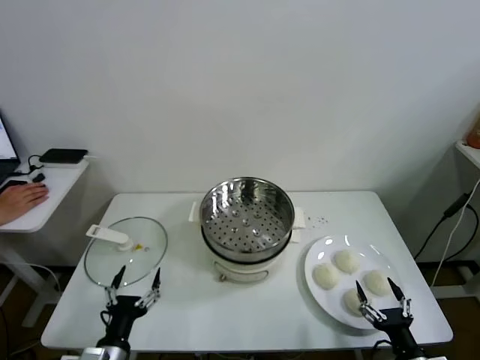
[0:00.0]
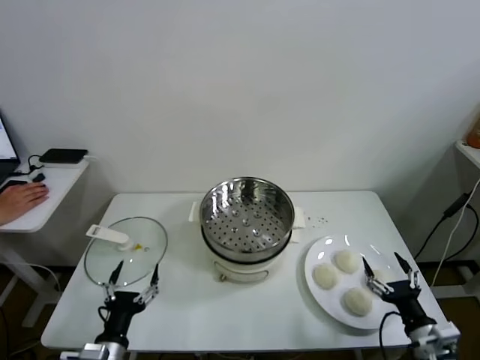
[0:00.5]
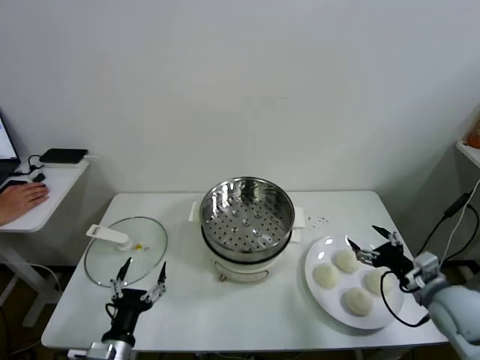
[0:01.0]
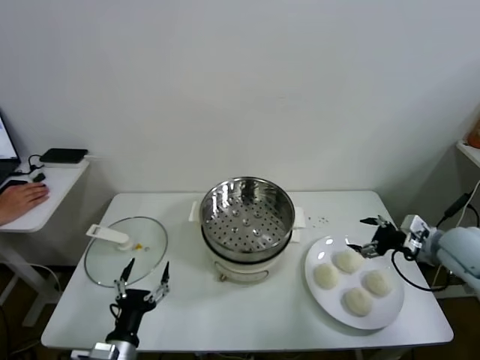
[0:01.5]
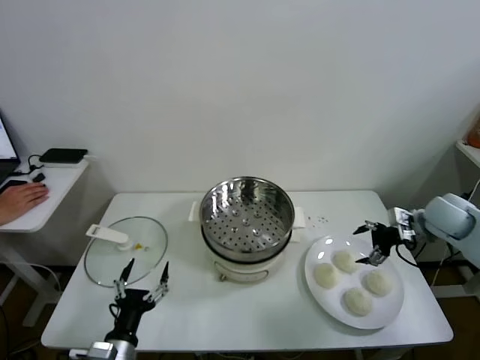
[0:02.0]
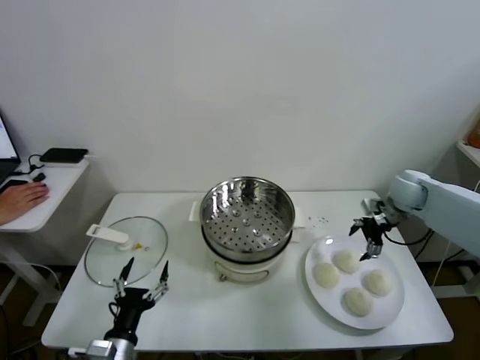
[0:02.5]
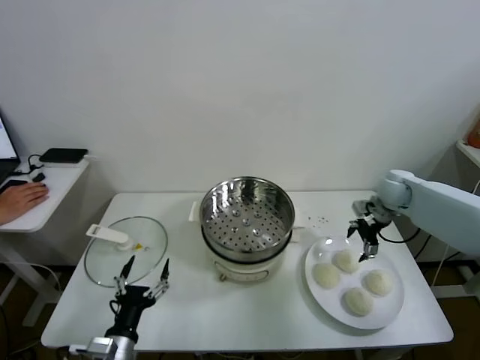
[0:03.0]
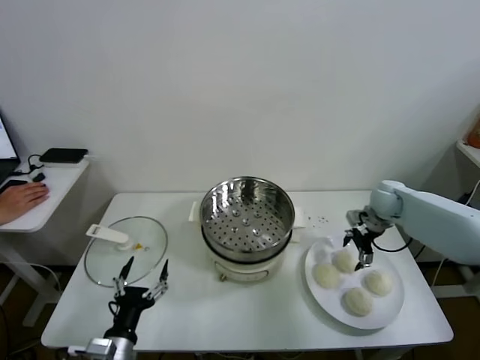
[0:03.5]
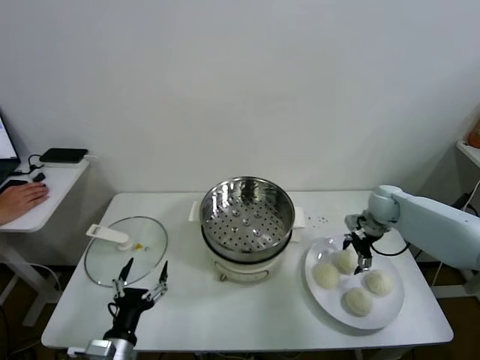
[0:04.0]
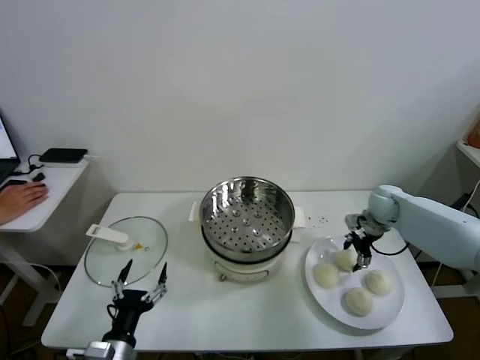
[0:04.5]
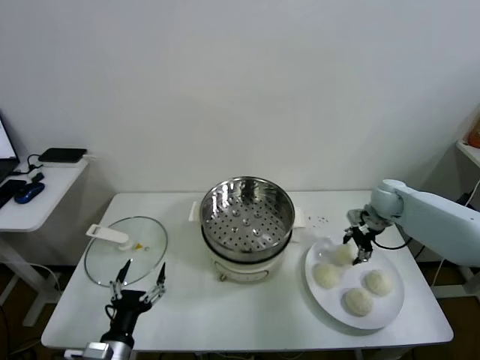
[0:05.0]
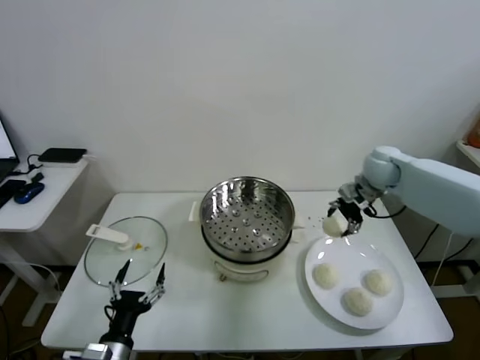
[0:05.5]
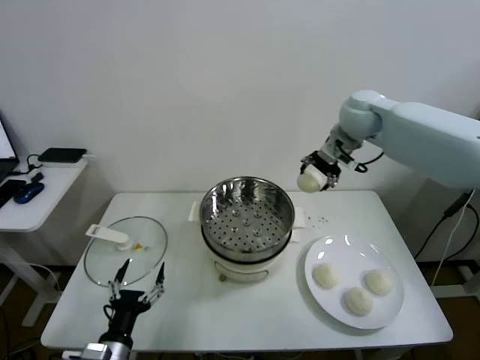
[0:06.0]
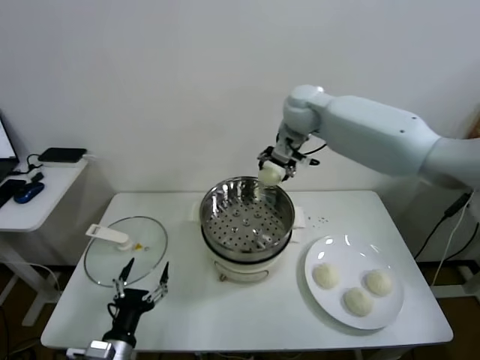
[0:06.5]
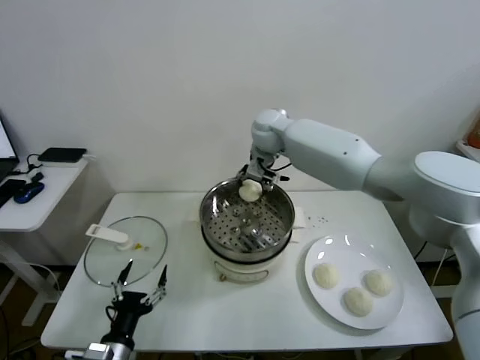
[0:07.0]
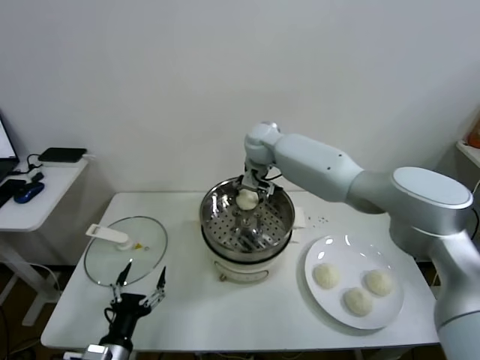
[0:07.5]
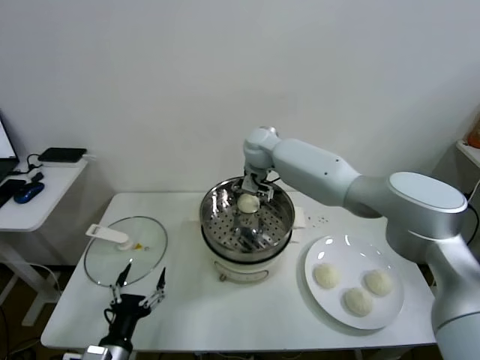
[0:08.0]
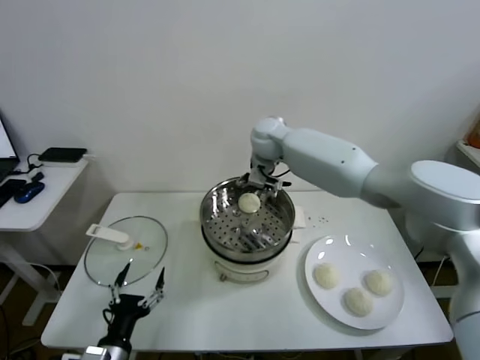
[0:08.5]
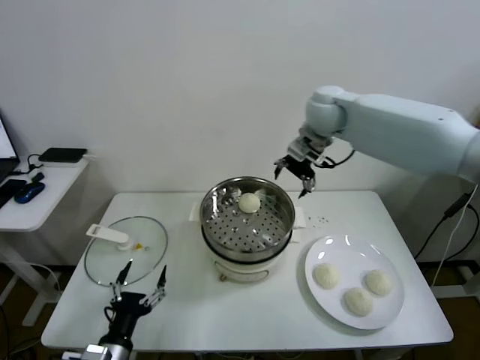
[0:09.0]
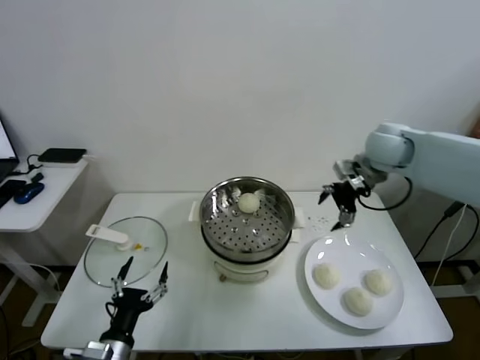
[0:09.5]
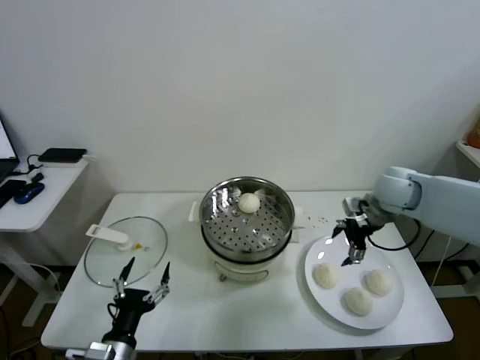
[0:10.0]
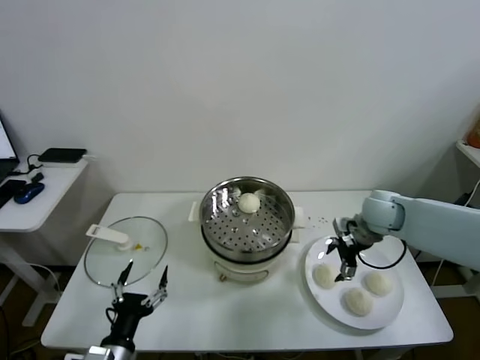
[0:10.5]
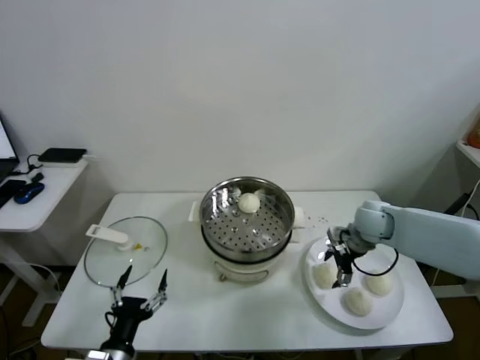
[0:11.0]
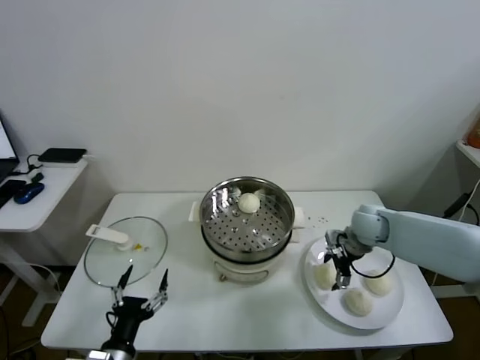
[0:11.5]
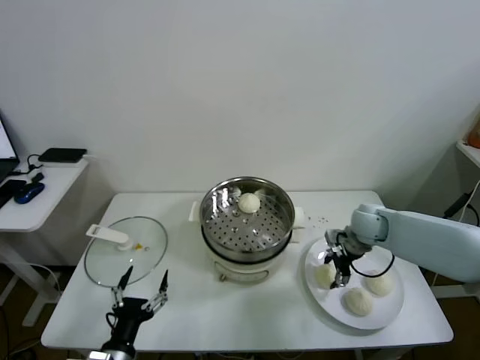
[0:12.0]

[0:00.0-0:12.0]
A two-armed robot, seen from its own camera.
Task of the whole recording: take steamed baozi put them in steamer.
Step, 0:00.0 to 0:04.5: Grasp the baozi in the plate with right gripper.
Step, 0:05.0 to 0:08.0: Place the baozi on the steamer with right gripper.
0:02.0 to 0:04.0: The right gripper is displaced forward, downward and to the left by some 10 cm.
0:04.0 to 0:06.0: The right gripper is displaced upward and to the left by approximately 30 cm, and closes.
0:06.0 to 0:08.0: The right gripper heads to the left and downward, covering some 25 cm, and opens its fingers.
0:08.0 to 0:10.0: The right gripper shifts approximately 30 cm to the right and backward.
0:10.0 to 0:12.0: The right gripper shifts about 10 cm downward, and closes up.

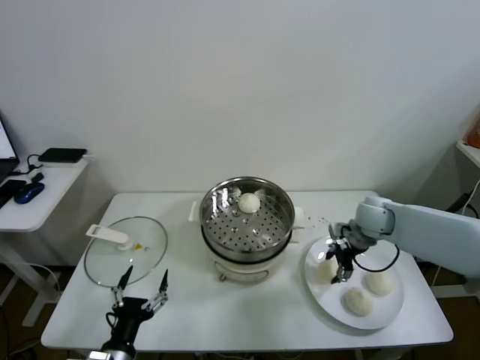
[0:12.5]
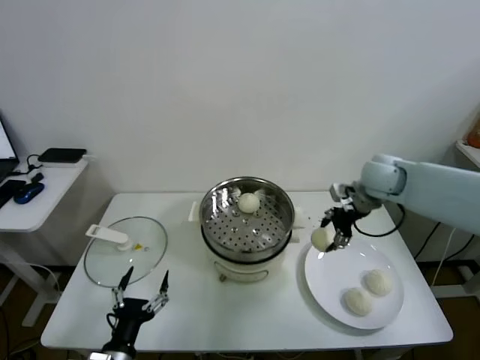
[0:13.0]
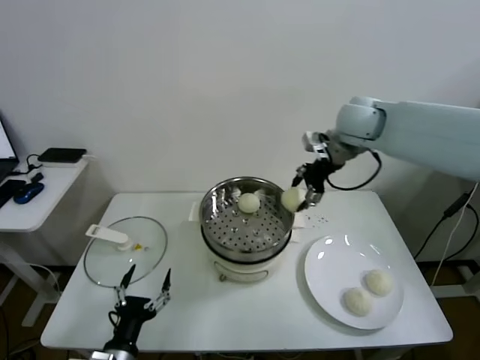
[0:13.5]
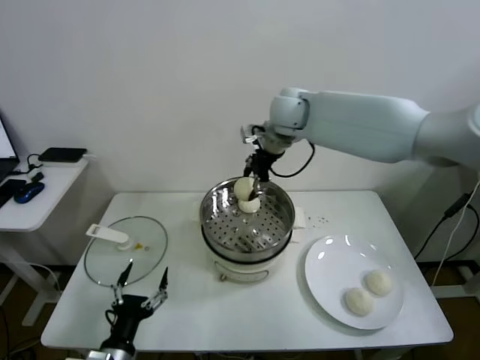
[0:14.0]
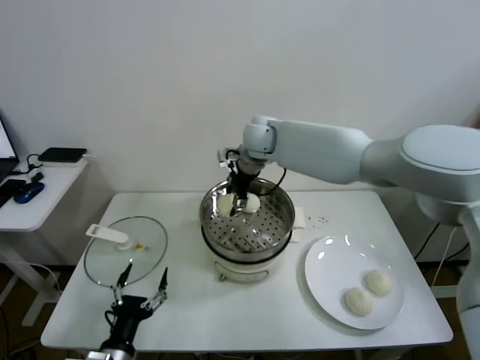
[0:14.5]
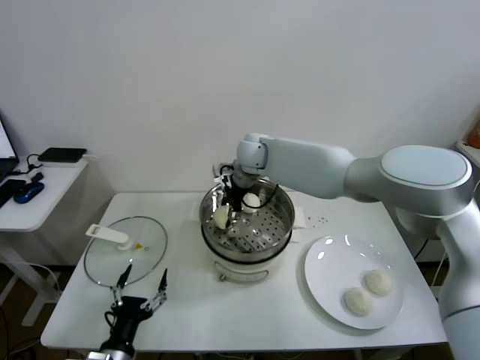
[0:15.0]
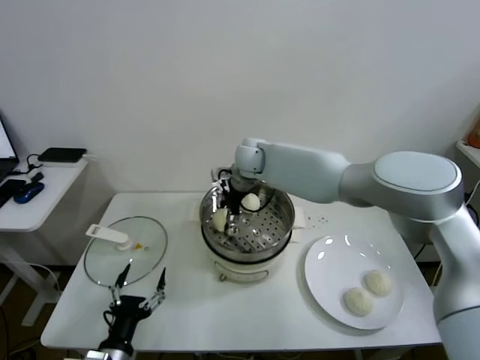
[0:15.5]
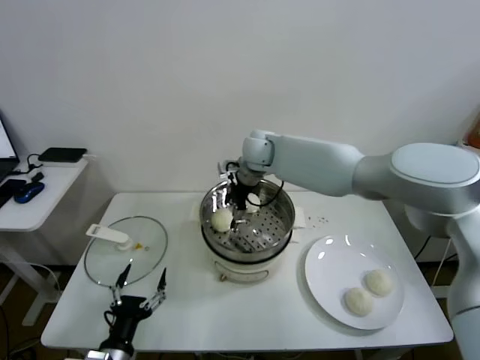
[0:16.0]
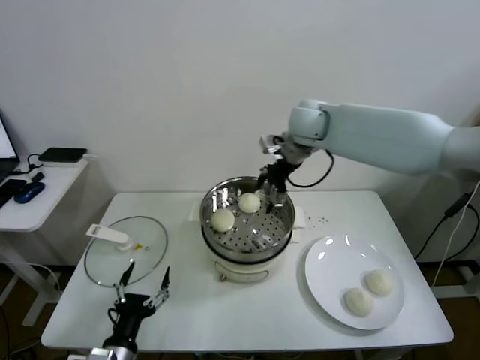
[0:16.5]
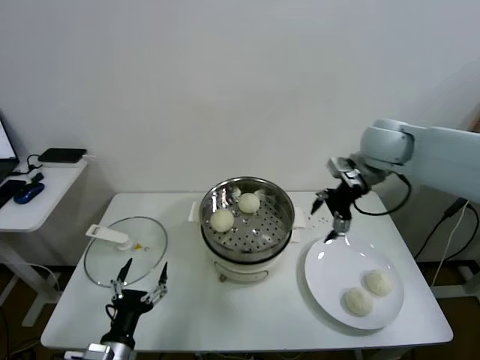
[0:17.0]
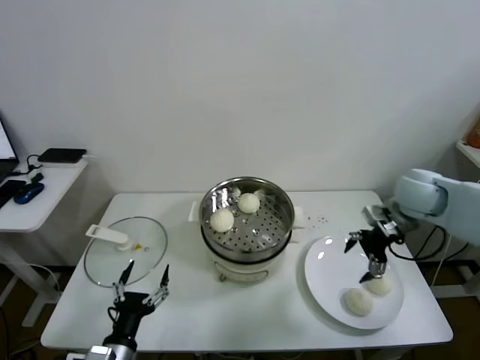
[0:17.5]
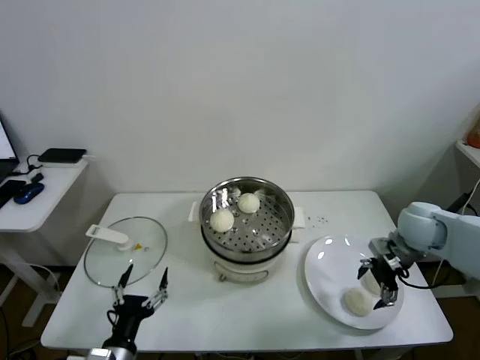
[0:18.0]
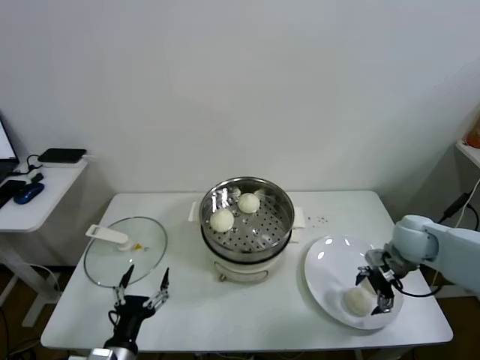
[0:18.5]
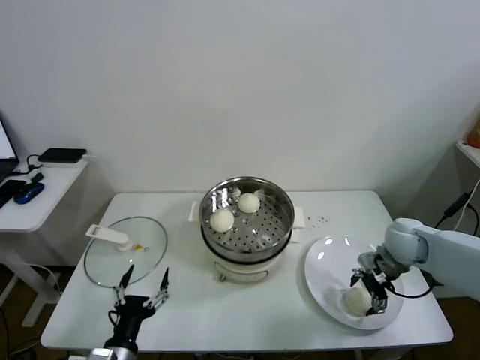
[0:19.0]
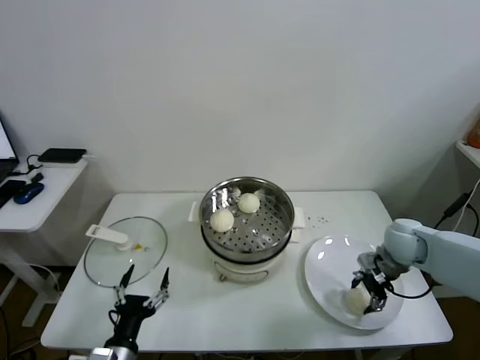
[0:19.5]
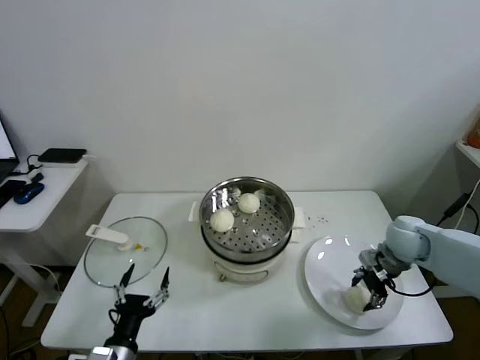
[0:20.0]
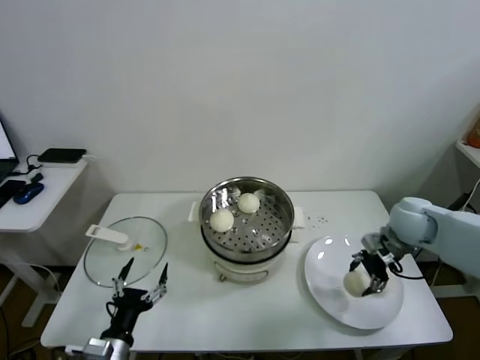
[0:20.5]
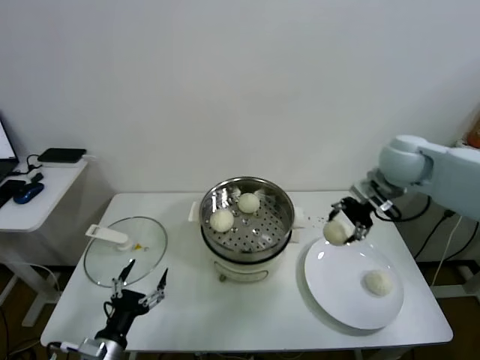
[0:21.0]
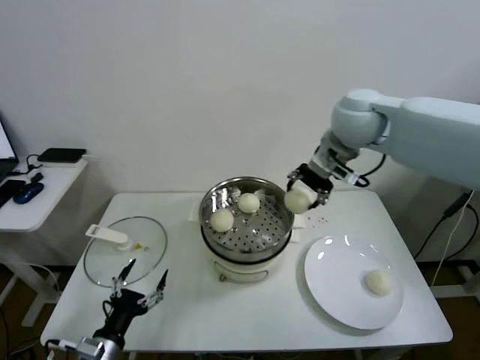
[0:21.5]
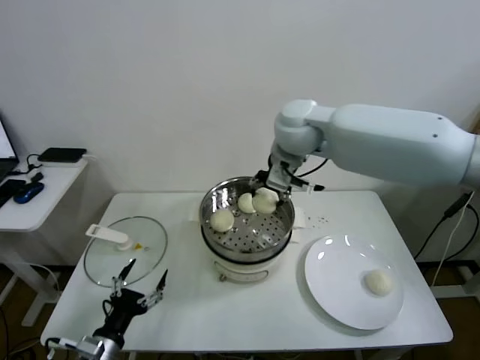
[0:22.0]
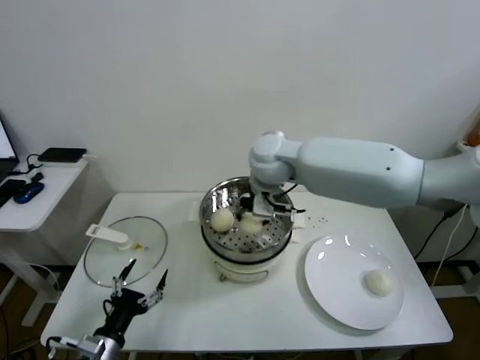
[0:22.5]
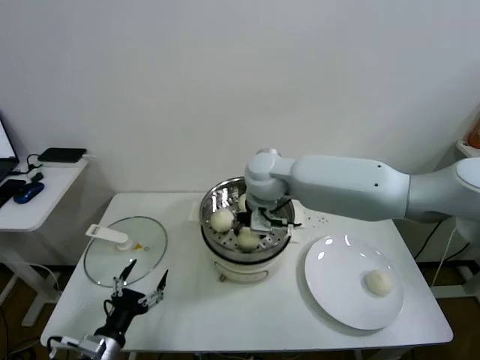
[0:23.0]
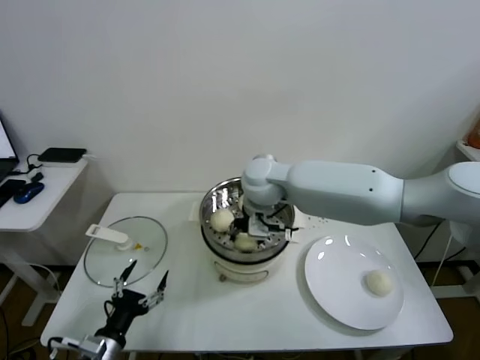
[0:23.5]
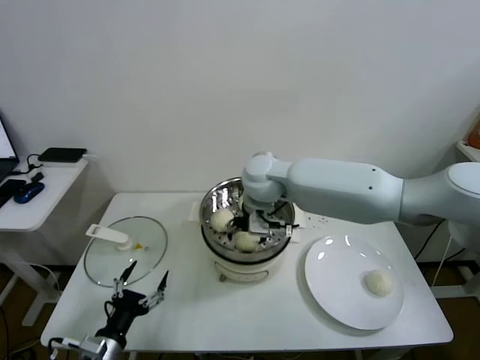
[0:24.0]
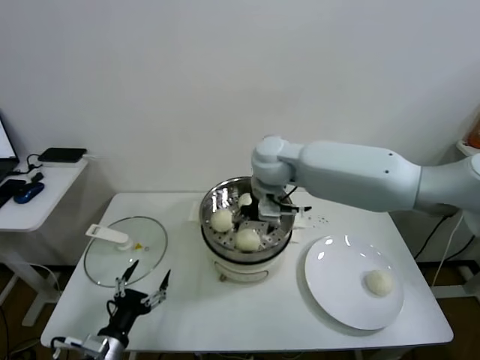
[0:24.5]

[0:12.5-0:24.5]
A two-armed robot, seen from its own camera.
Task of the whole recording: take steamed baozi put them in steamer.
Step, 0:12.5 to 0:15.5: Place the baozi on the steamer with right gripper.
Step, 0:16.0 to 0:20.0: Grasp the baozi in the plate with right gripper.
Step, 0:20.5 to 0:23.5: Place the baozi on the steamer with right gripper.
0:12.5 to 0:14.5: The right gripper heads to the left and upward, covering approximately 30 cm.
0:14.5 to 0:16.5: The right gripper goes approximately 10 cm to the right and upward, and opens up.
0:16.5 to 0:18.5: The right gripper shifts roughly 35 cm to the right, downward and backward.
0:18.5 to 0:20.5: The right gripper closes up.
0:20.5 to 0:22.5: The right gripper is displaced to the left and upward by roughly 35 cm.
0:22.5 to 0:24.5: The right gripper opens its fingers.

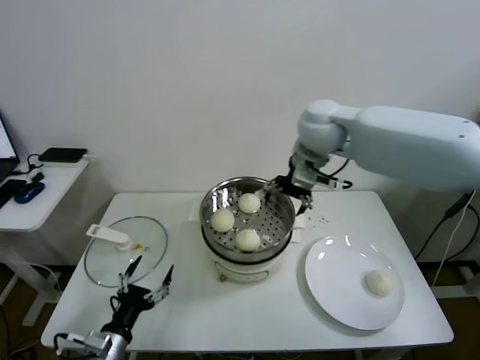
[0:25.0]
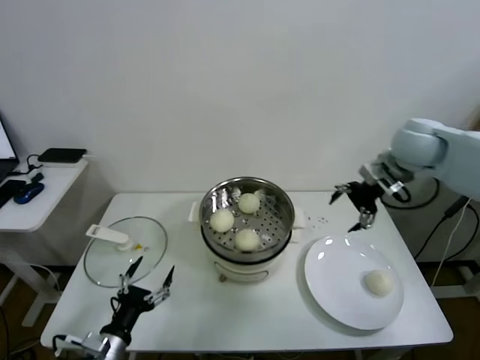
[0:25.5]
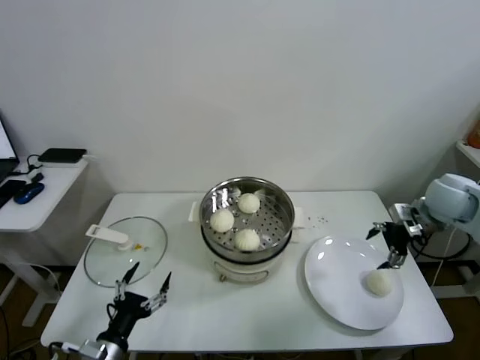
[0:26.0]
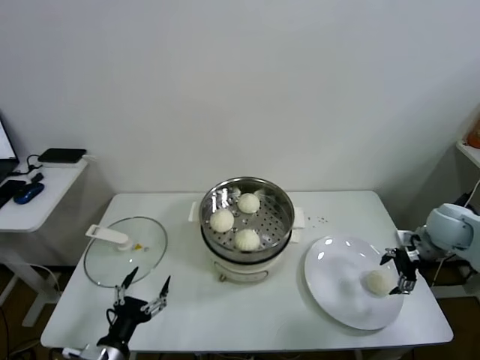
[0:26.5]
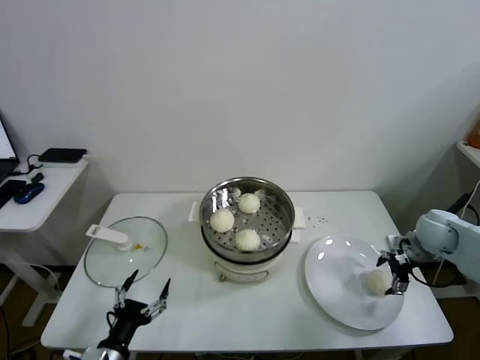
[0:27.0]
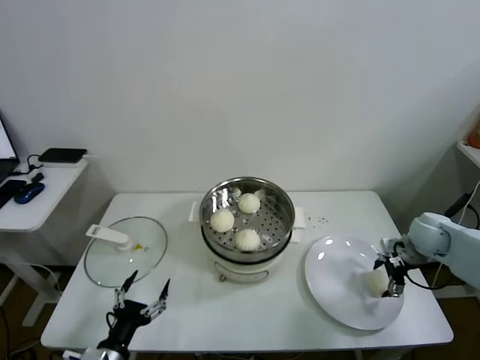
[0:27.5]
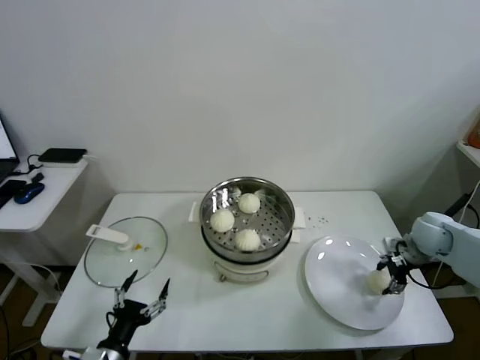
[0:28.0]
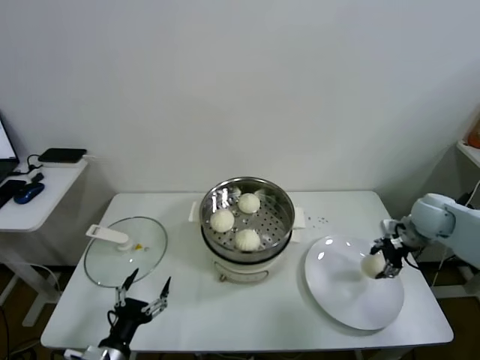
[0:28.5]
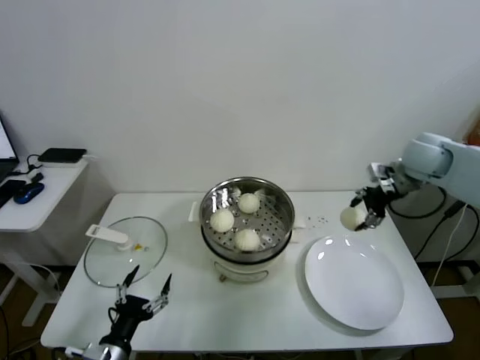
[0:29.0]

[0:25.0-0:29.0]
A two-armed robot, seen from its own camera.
Task of the whole recording: take steamed baozi put them in steamer.
Step, 0:25.0 to 0:27.5: Grasp the baozi in the plate with right gripper.
0:25.0 to 0:27.0: The right gripper shifts roughly 40 cm to the right and downward.
0:27.0 to 0:29.0: The right gripper travels upward, forward and to the left by some 20 cm, and closes.
